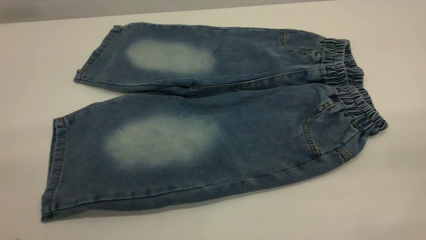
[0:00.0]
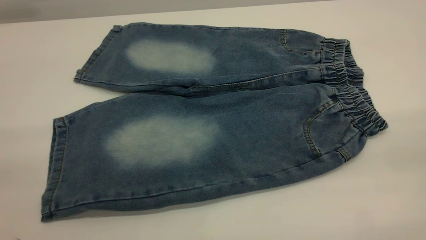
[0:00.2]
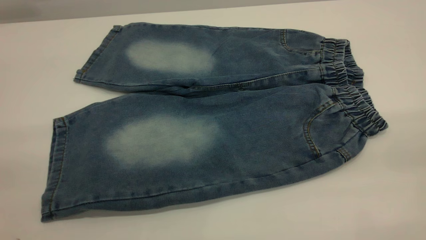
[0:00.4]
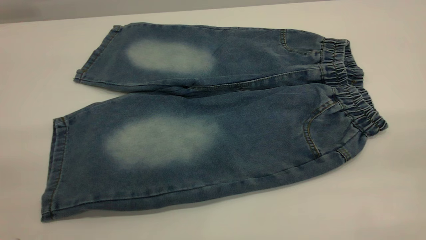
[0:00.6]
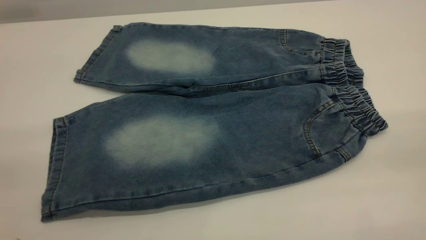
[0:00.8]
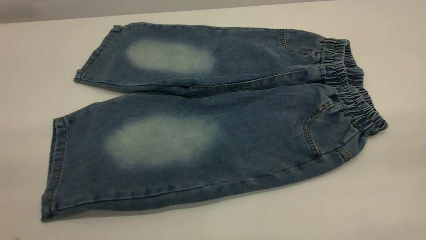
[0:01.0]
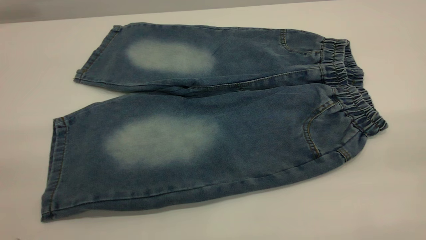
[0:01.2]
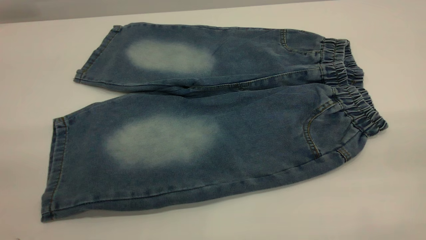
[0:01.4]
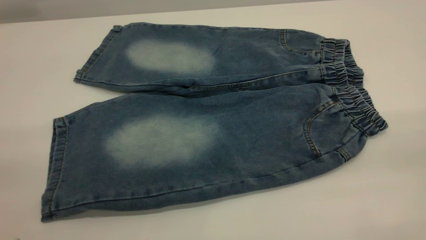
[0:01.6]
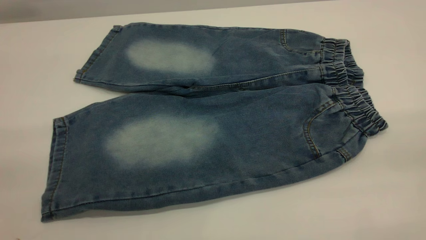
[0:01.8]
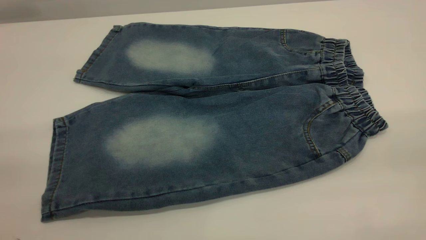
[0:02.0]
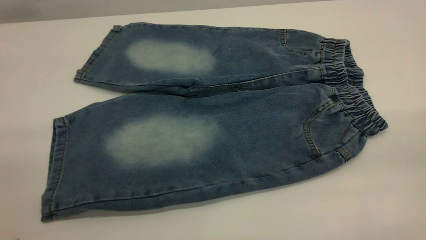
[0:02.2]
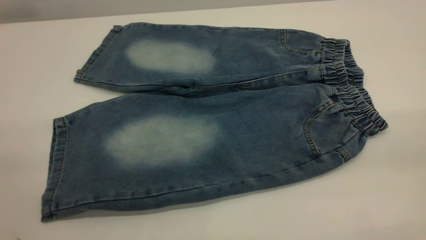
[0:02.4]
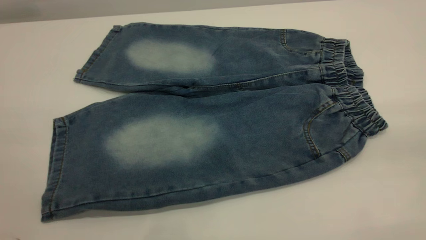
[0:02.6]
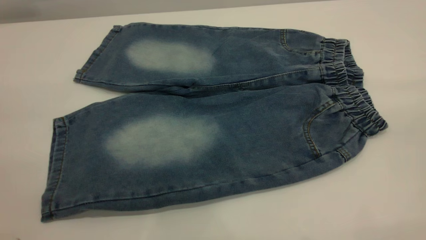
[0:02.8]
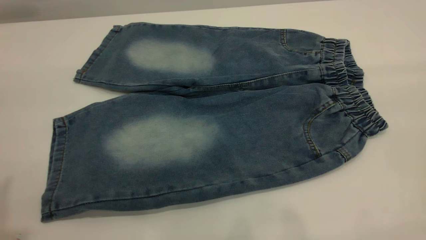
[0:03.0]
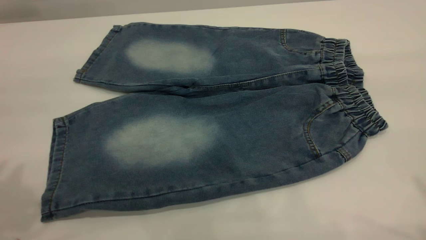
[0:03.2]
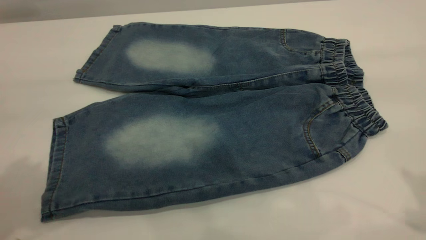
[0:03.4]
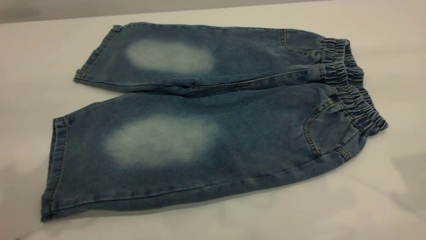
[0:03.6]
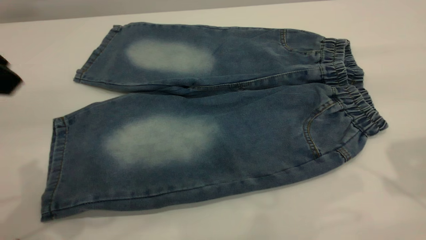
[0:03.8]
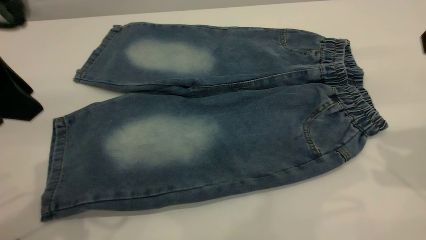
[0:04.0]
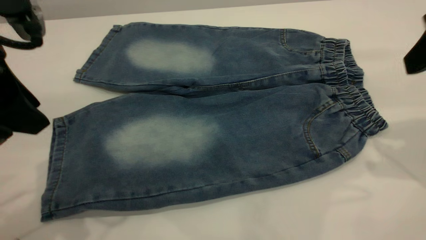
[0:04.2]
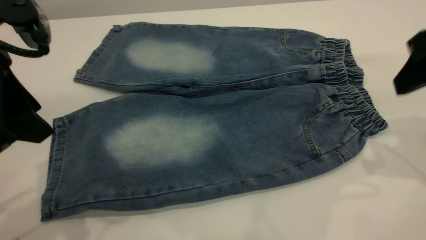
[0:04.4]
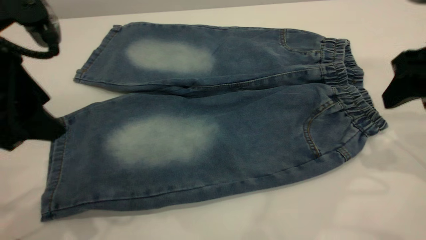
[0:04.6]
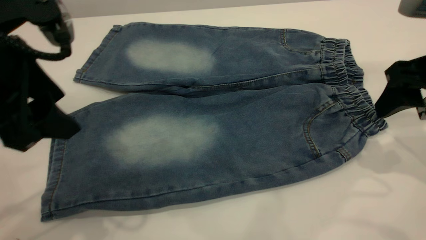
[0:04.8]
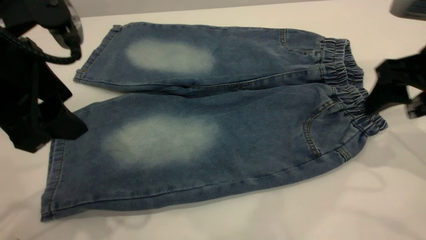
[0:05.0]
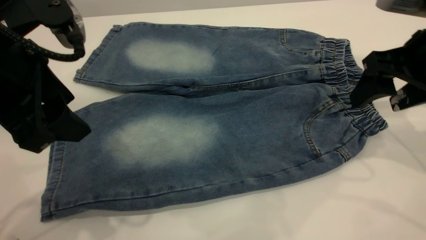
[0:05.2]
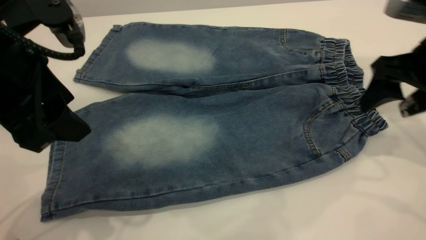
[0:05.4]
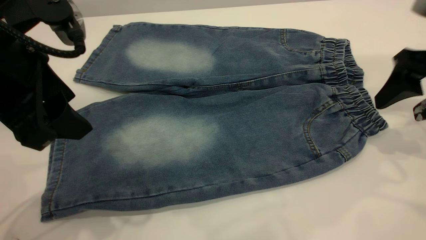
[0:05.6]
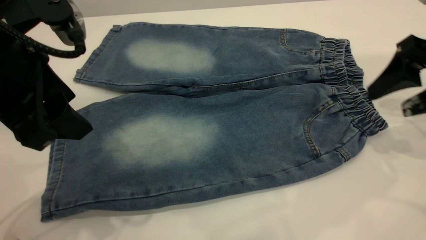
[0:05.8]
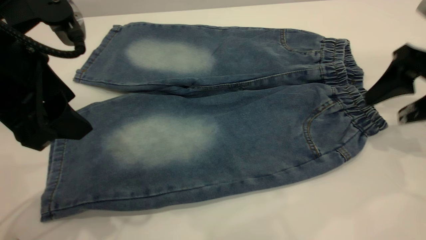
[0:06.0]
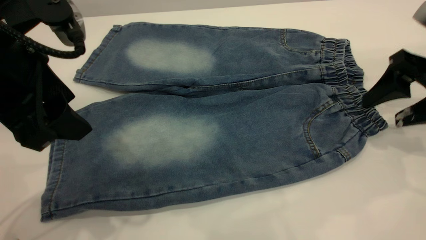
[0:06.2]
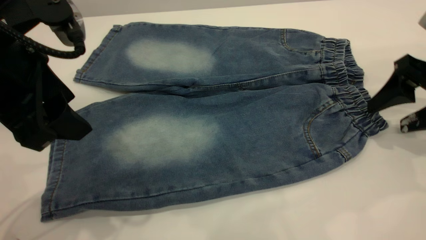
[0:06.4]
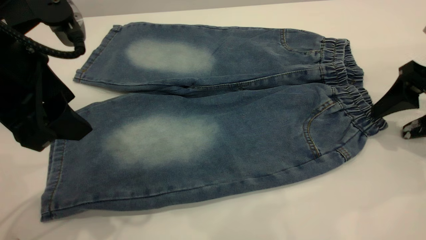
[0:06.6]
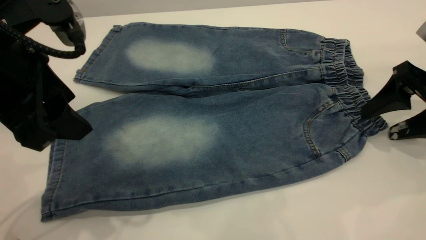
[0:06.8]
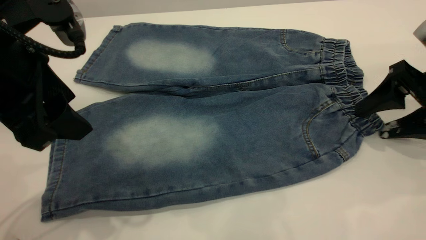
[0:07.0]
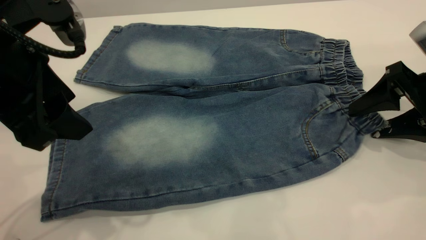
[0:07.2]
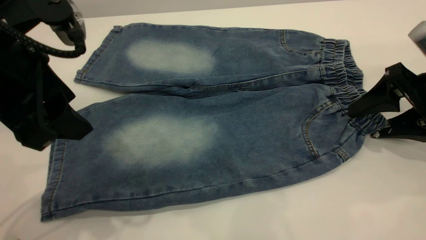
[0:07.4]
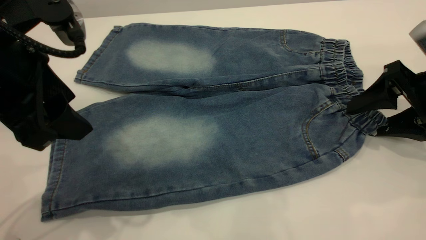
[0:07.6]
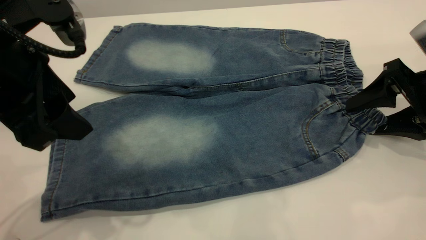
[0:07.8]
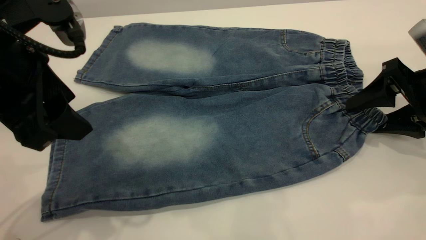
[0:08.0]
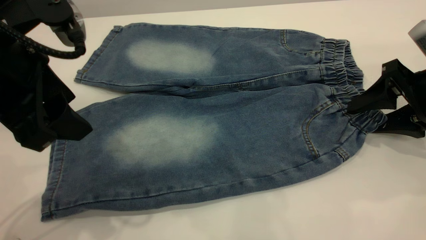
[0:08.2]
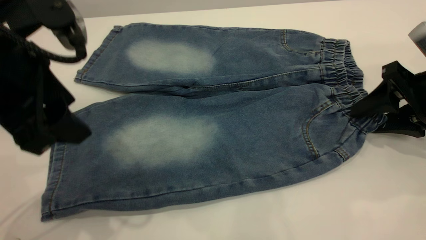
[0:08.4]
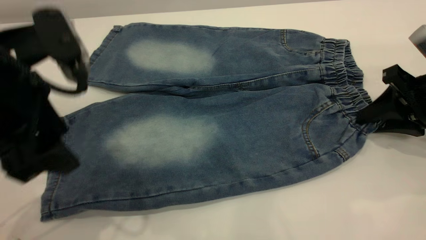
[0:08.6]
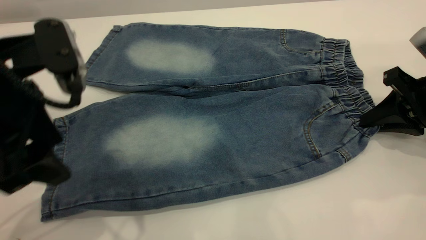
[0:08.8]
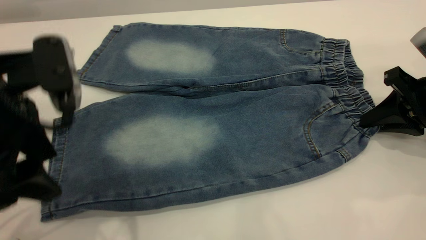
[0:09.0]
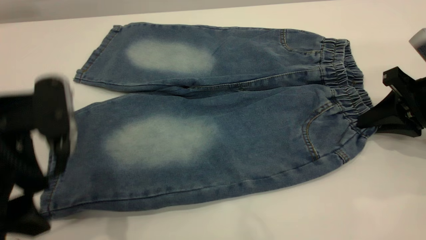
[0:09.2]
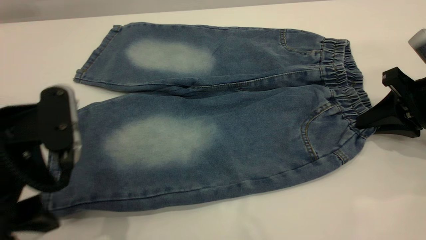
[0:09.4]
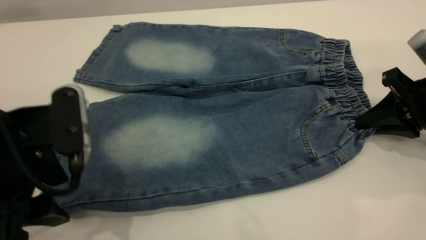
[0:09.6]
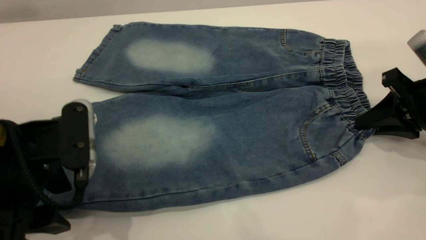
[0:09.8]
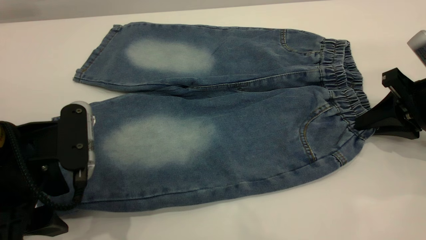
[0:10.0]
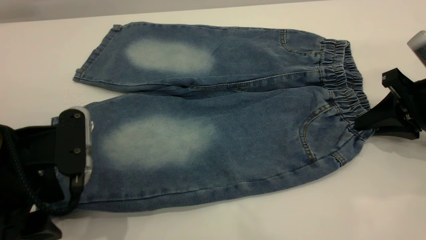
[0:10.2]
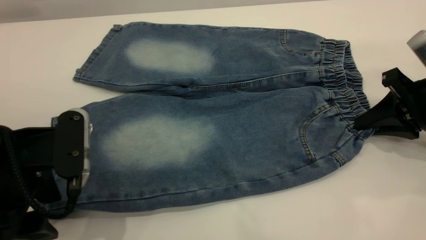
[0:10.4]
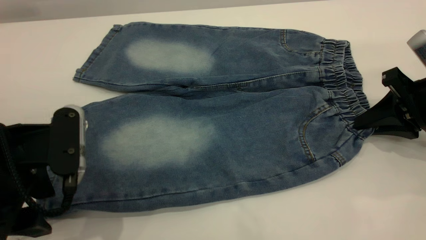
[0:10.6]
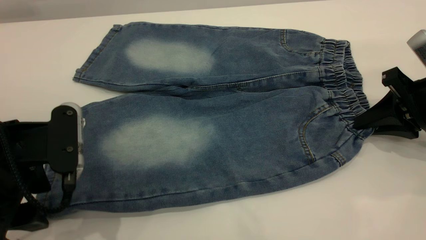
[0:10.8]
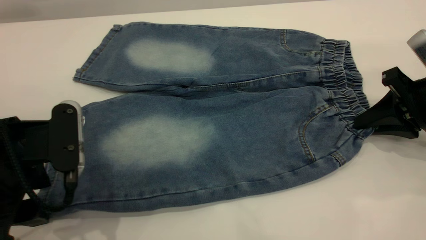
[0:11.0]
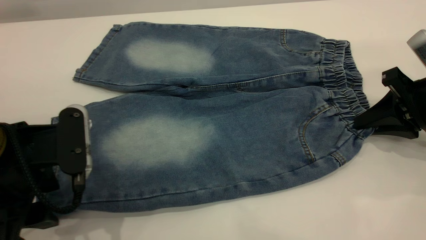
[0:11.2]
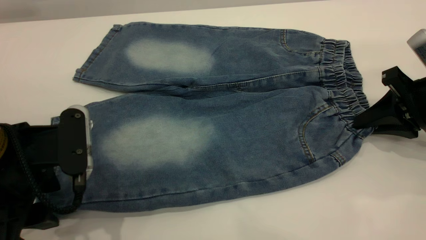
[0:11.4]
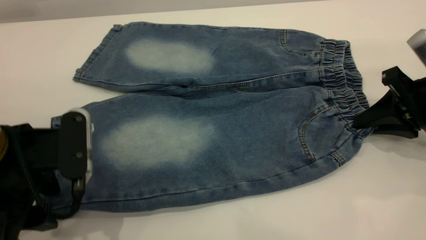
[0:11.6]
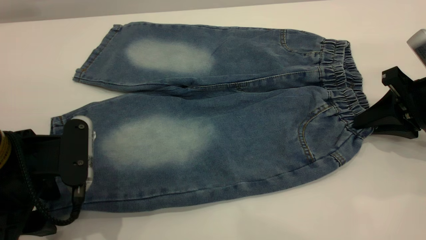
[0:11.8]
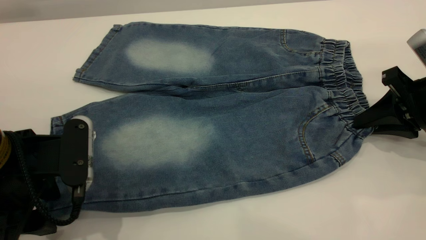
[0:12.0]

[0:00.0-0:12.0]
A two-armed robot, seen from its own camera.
0:00.0 to 0:01.6: Both grippers stay put.
0:03.0 to 0:04.4: The left gripper shifts some 20 cm downward, forward and to the right, and opens its fingers. The right gripper heads downward and forward, covering about 20 cm.
0:04.4 to 0:06.0: The right gripper travels downward by about 5 cm.
0:06.0 to 0:07.6: The right gripper goes some 5 cm downward.
0:07.6 to 0:09.0: The right gripper closes its fingers.
0:09.0 to 0:10.4: The left gripper travels downward by about 5 cm.
0:10.4 to 0:12.0: The grippers make only small movements.

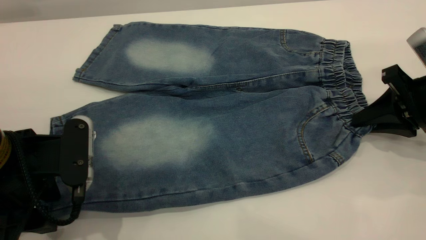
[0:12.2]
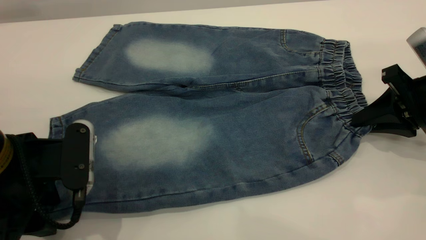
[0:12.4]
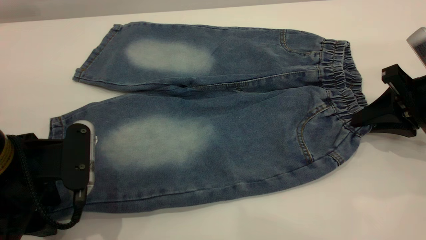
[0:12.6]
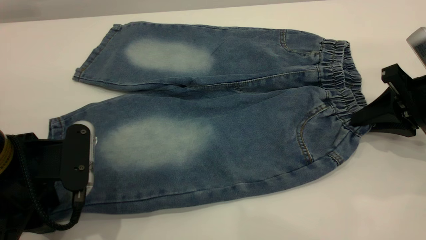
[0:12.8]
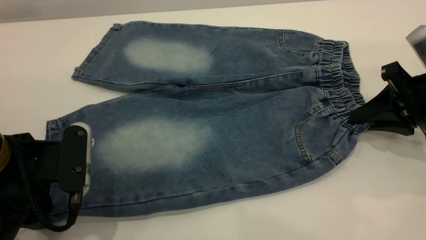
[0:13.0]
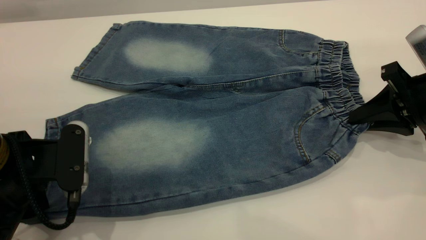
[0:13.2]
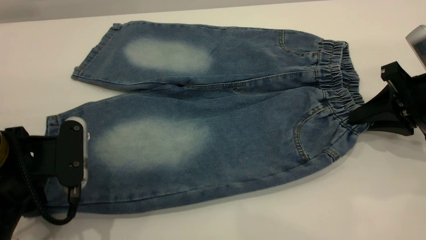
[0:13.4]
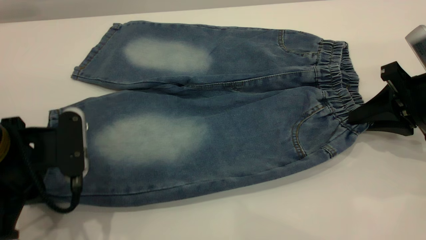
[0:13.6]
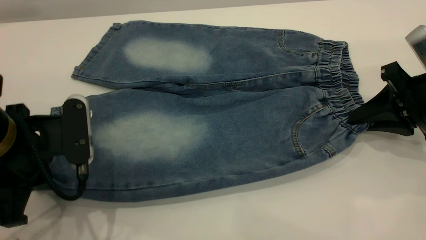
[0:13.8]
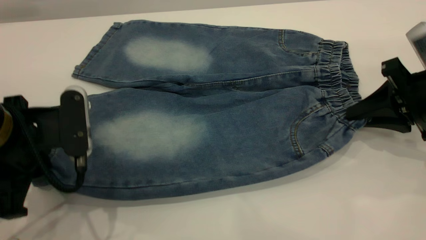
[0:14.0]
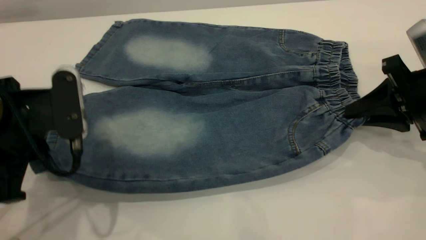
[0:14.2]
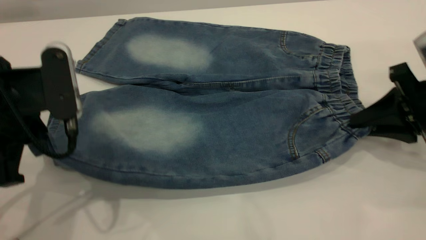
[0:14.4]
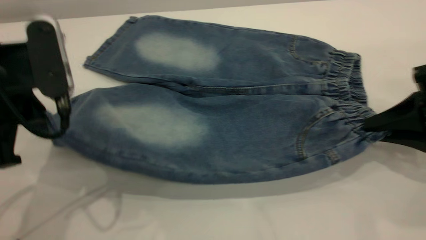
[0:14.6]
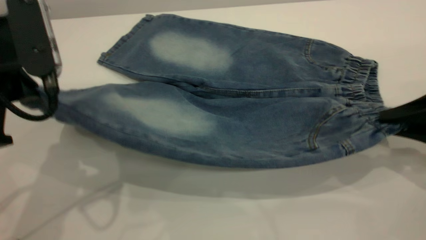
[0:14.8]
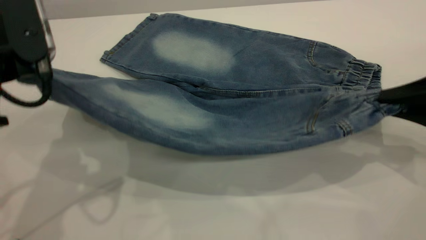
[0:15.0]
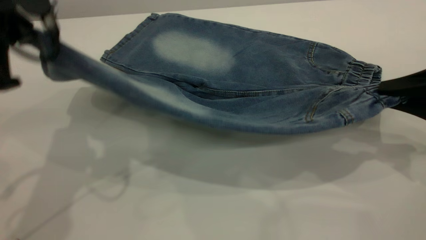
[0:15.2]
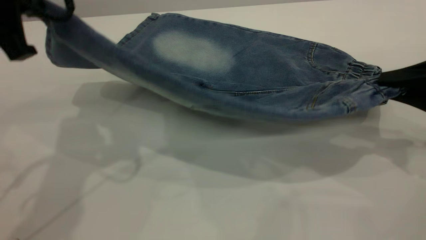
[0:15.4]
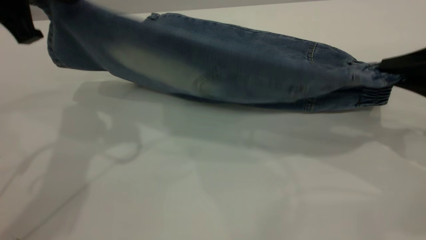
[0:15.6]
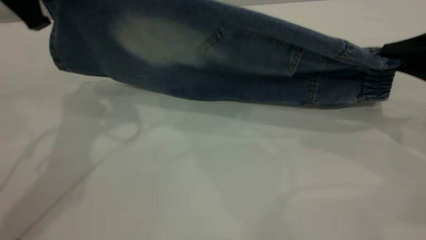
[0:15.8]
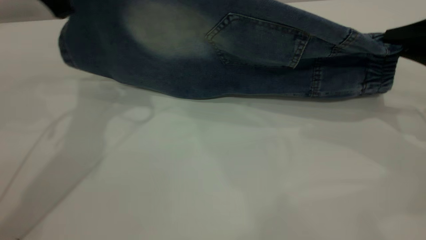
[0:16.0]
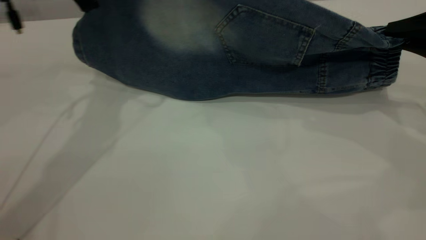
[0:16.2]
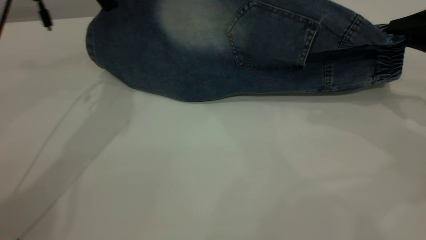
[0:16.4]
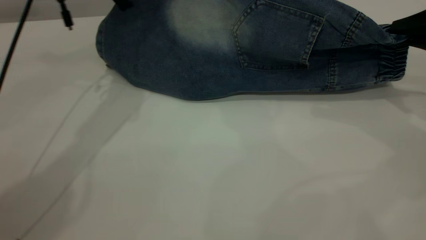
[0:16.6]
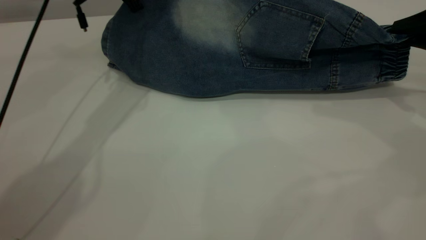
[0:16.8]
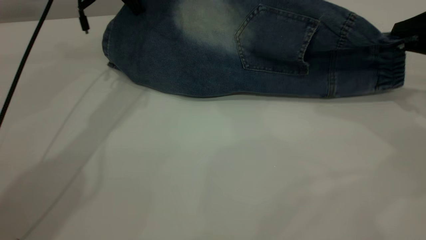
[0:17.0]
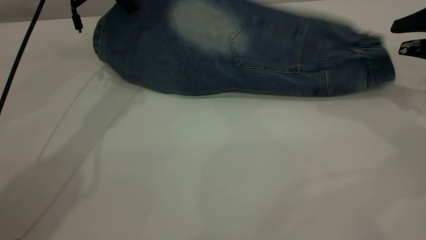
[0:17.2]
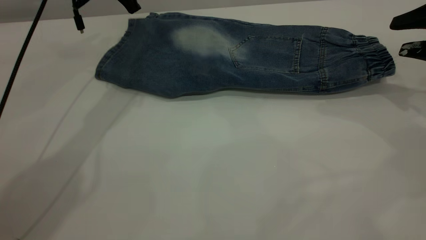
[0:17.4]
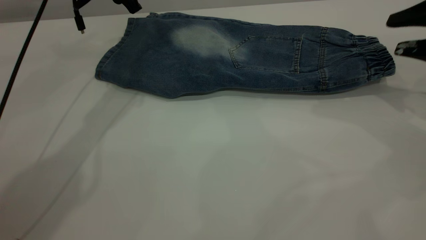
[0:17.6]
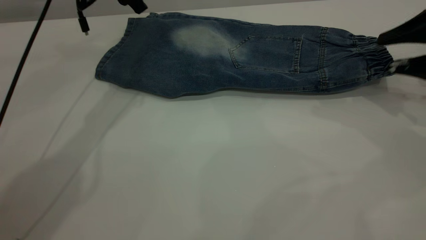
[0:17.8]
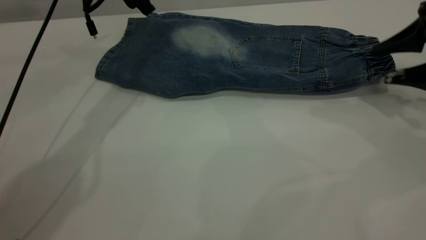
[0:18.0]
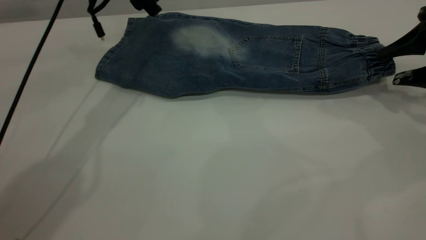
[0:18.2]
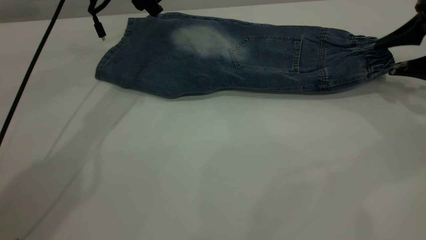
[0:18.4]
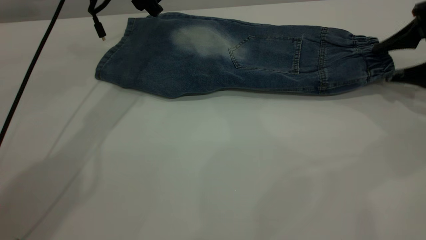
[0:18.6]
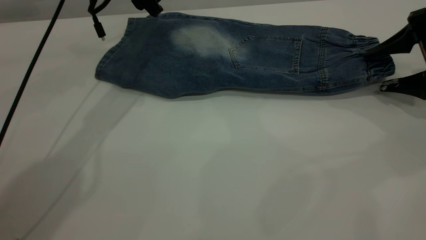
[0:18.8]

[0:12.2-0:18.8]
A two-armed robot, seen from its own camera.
Step, 0:12.2 to 0:17.2: Fold the bottom of the pants upward.
0:12.2 to 0:13.8: The left gripper closes its fingers.
0:13.8 to 0:15.4: The right gripper shifts by roughly 5 cm. The left gripper heads upward and forward, covering approximately 15 cm.
0:15.4 to 0:17.2: The right gripper heads forward, covering some 10 cm, and opens. Meanwhile the left gripper moves forward, about 20 cm.
0:17.2 to 0:18.8: The left gripper opens.
